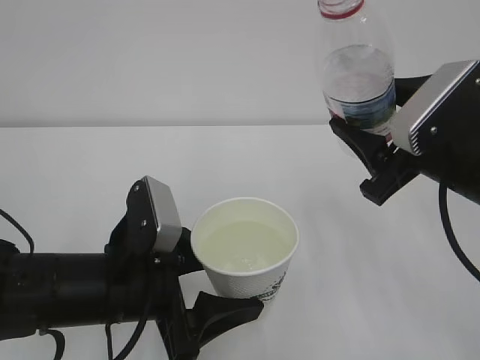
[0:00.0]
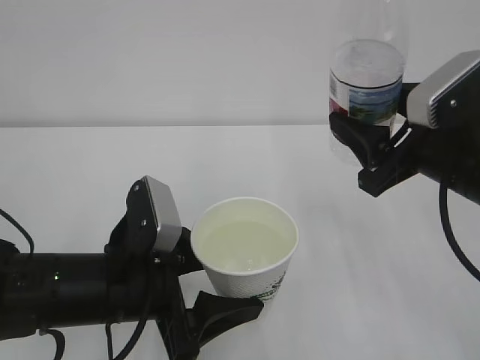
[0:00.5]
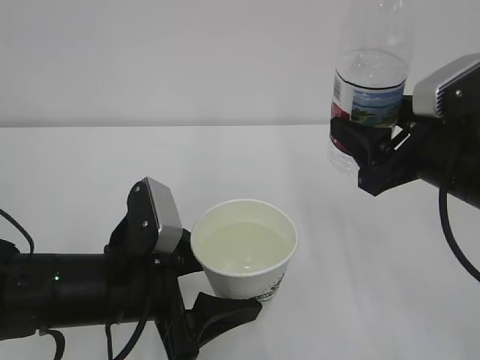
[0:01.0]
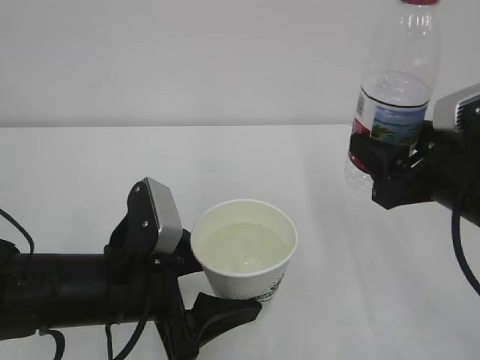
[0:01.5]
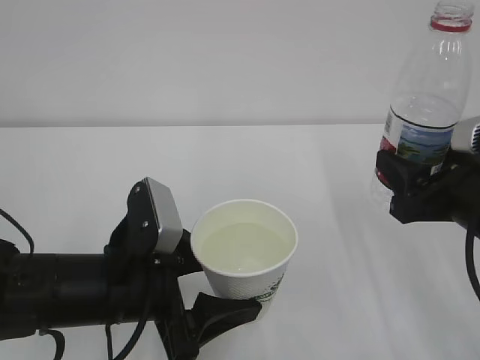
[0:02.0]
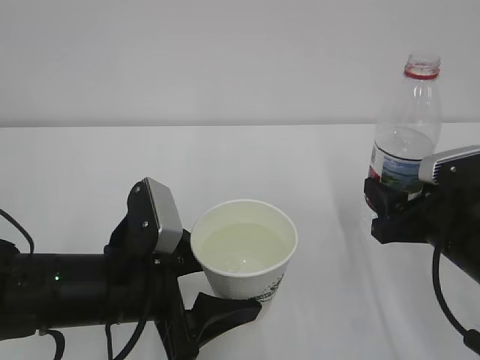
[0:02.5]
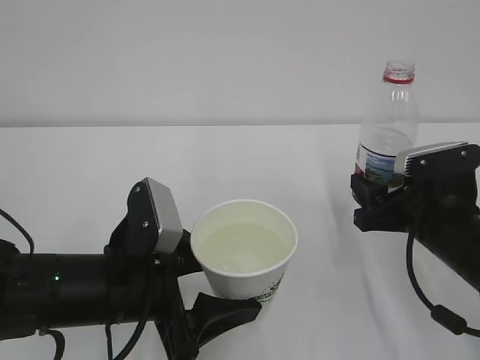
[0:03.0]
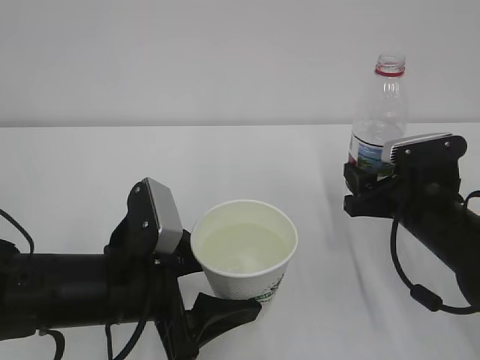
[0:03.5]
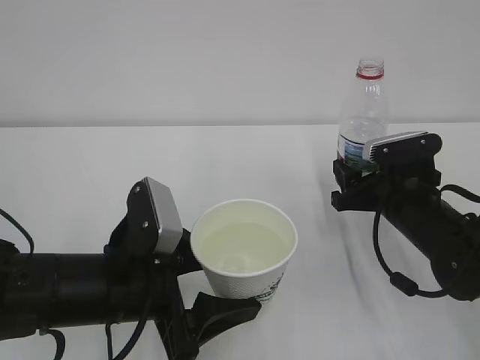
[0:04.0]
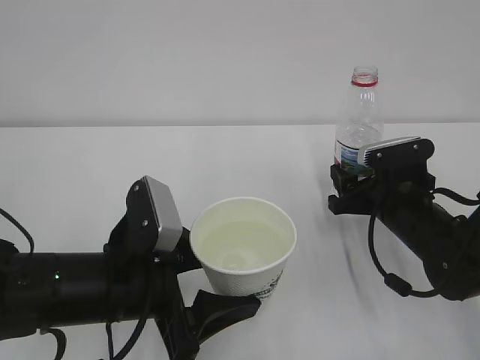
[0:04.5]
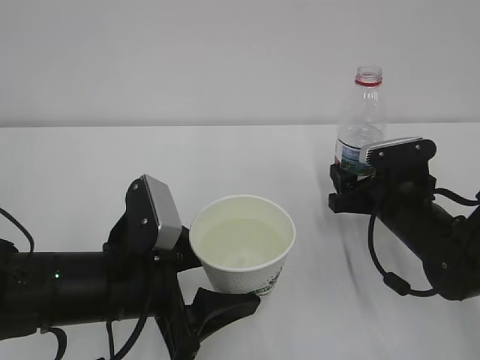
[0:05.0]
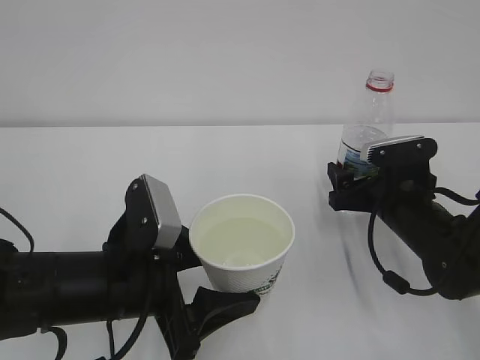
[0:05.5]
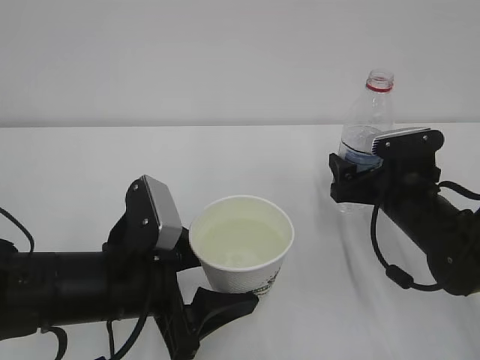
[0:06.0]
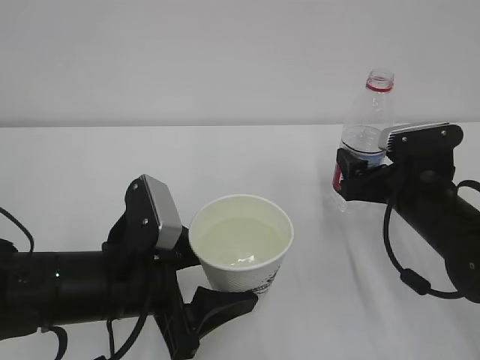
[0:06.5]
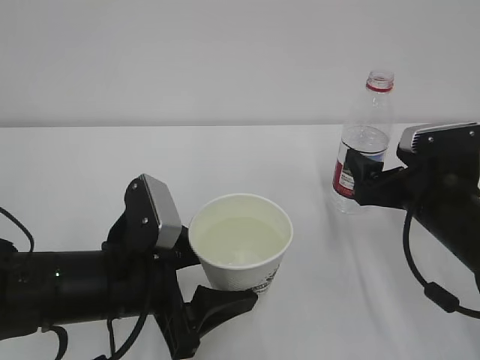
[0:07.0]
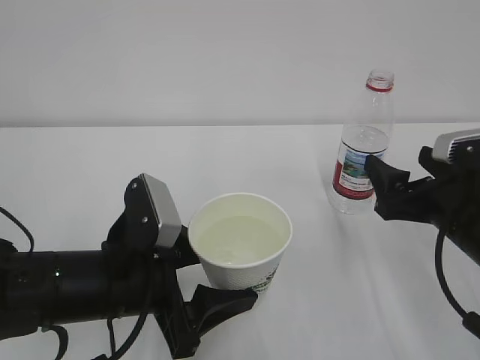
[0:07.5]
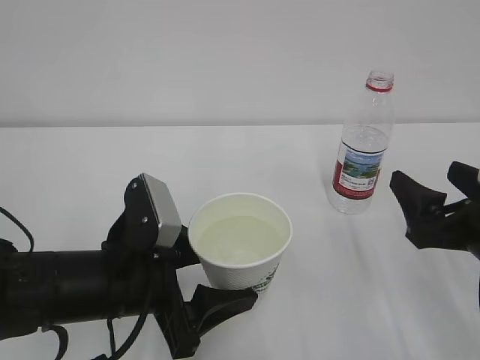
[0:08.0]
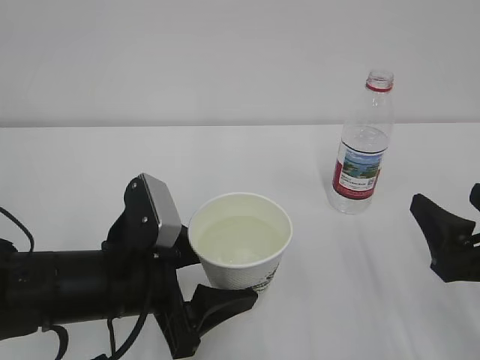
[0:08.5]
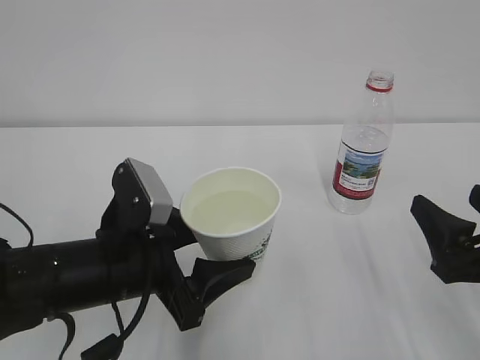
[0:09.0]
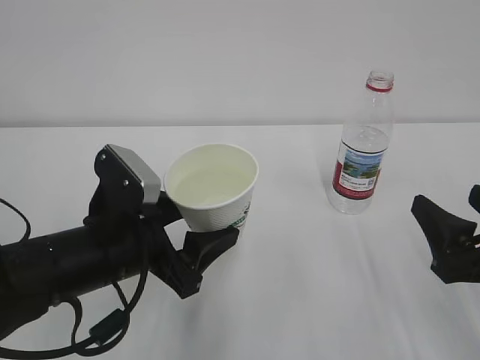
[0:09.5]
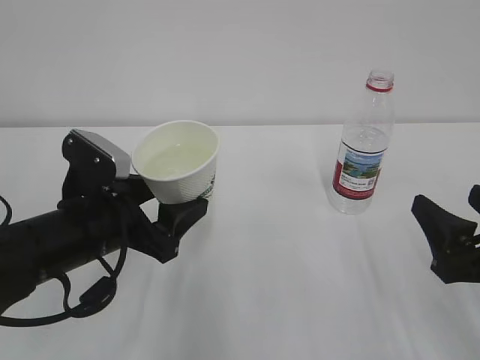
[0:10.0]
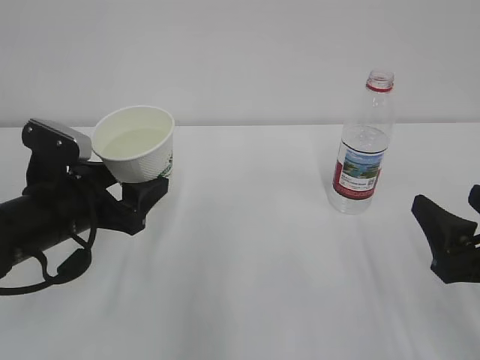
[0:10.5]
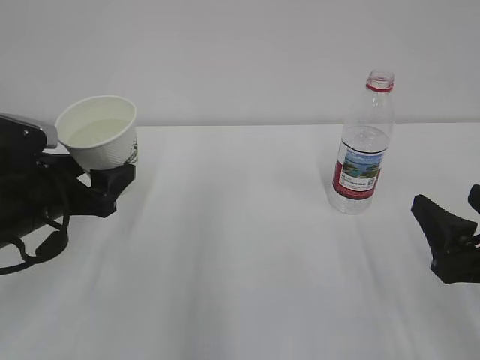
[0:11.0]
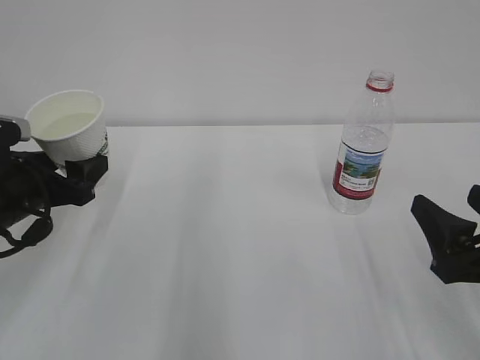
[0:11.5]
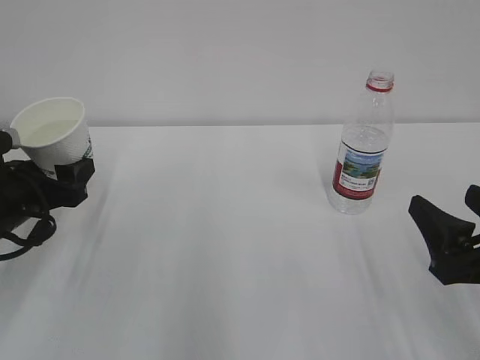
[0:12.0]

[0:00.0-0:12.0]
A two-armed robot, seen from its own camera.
0:00.0 to 0:02.0: The right gripper moves roughly 5 cm.
0:02.0 to 0:04.0: The right gripper shifts approximately 15 cm forward and downward.
0:04.0 to 0:06.0: The right gripper opens up.
0:06.0 to 0:08.0: The right gripper is displaced backward and upward by roughly 15 cm.
0:08.0 to 0:10.0: The left gripper shifts by about 5 cm.
0:10.0 to 0:12.0: The left gripper moves to the left and forward, roughly 10 cm.

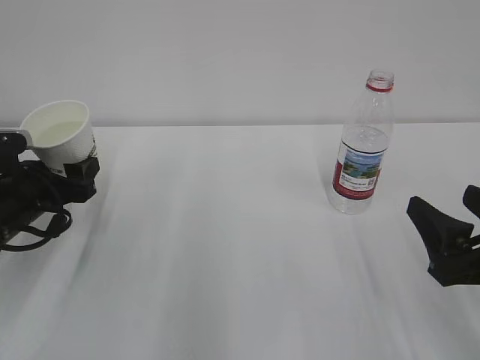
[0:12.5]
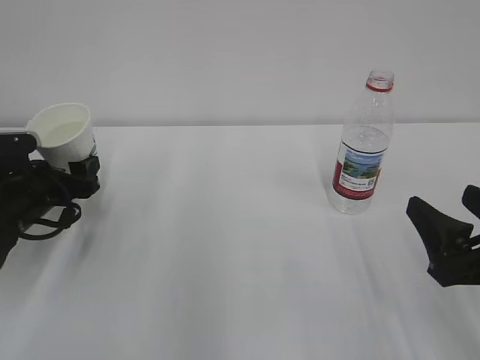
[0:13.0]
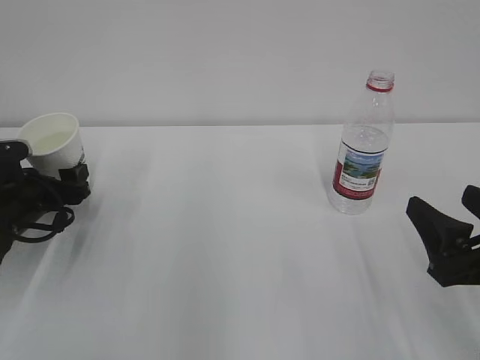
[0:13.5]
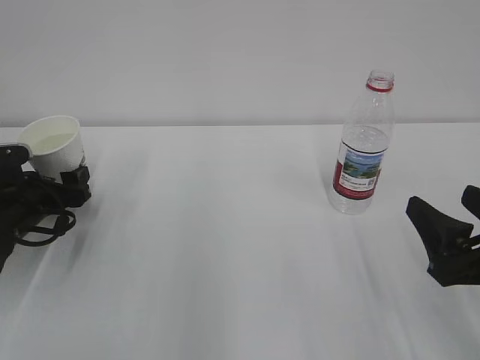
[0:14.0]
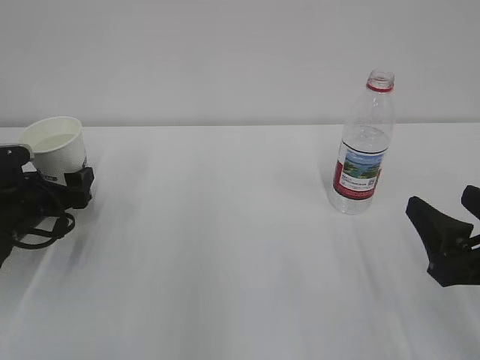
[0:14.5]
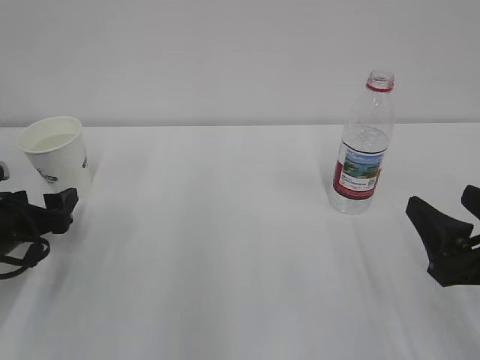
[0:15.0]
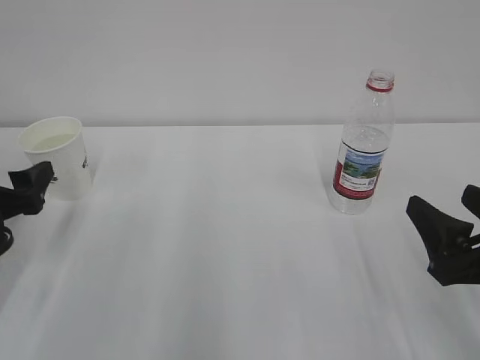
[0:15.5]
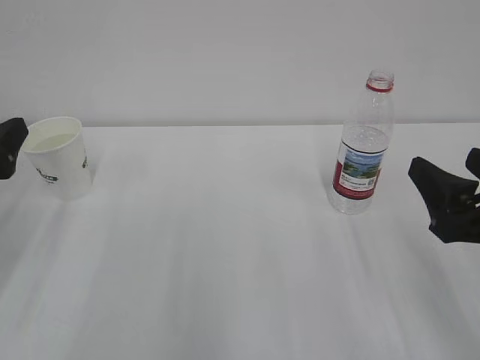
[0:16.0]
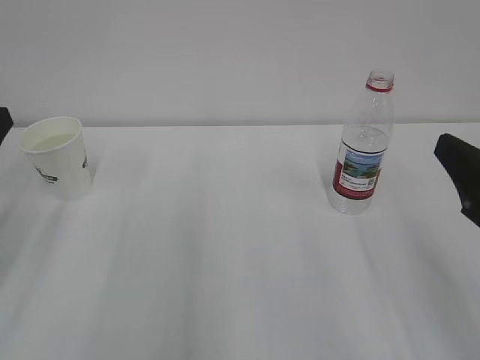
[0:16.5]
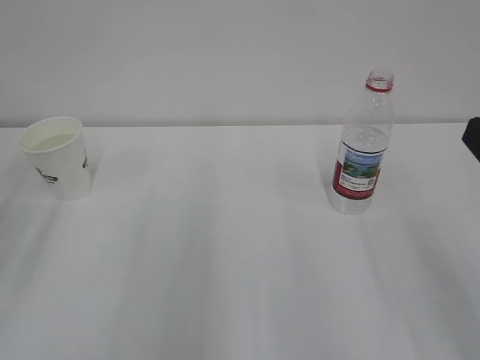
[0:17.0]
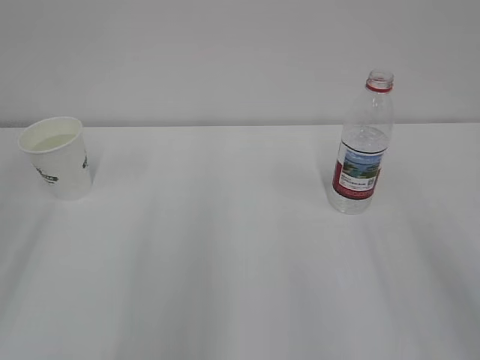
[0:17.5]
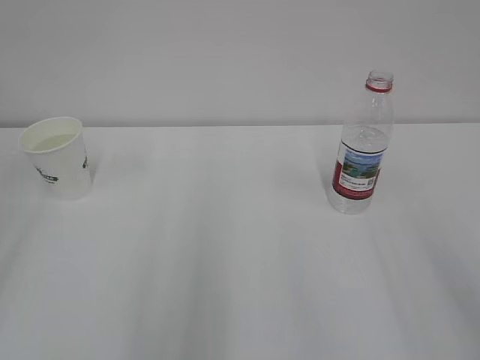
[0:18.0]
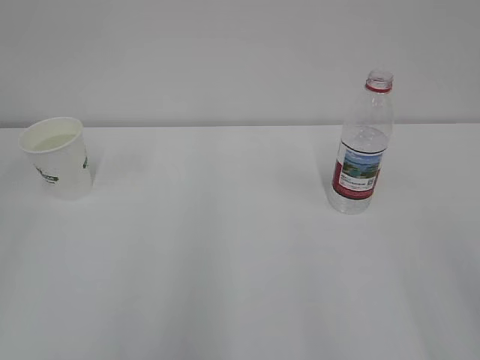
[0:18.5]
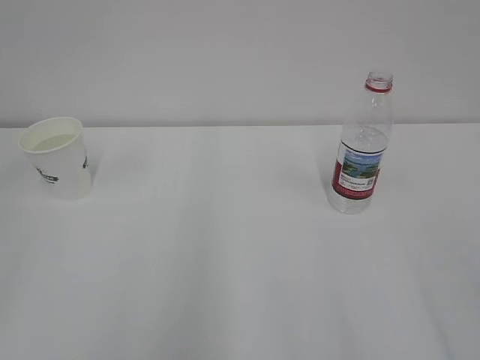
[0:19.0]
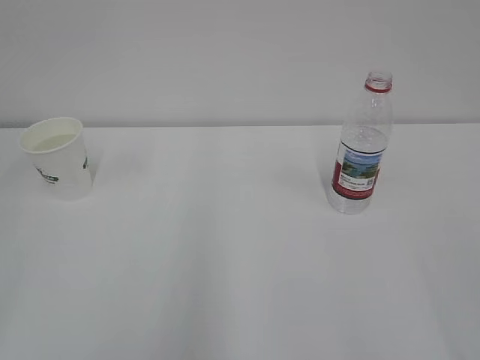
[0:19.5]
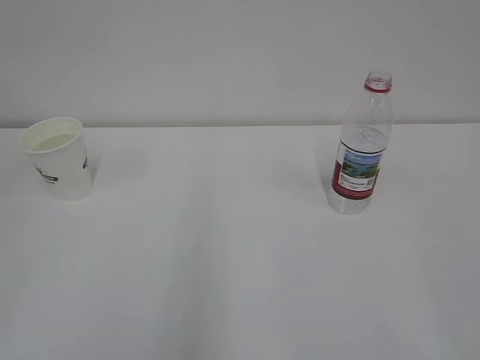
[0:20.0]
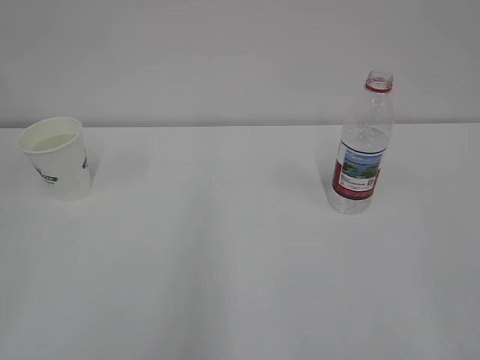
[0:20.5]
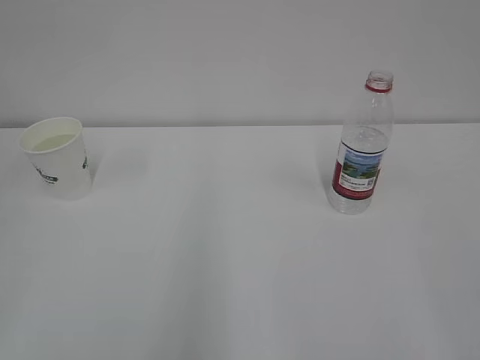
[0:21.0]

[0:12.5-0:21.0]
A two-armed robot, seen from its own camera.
0:12.5 to 0:14.5: The left gripper opens up.
0:14.5 to 0:16.5: The right gripper shifts roughly 5 cm upward. The left gripper is displaced upward and backward by some 20 cm.
0:16.5 to 0:19.0: The right gripper goes roughly 15 cm backward.

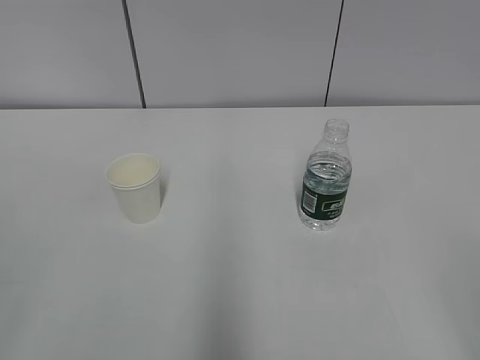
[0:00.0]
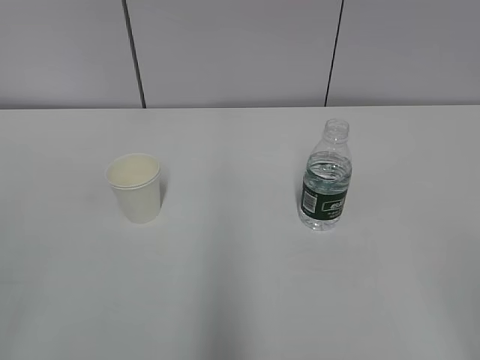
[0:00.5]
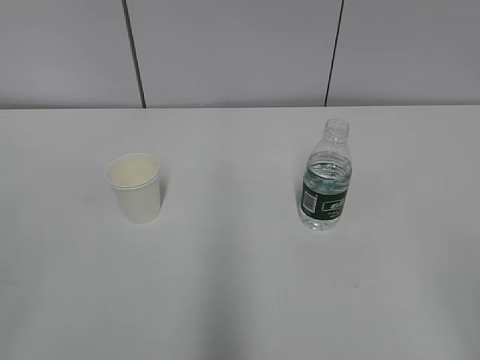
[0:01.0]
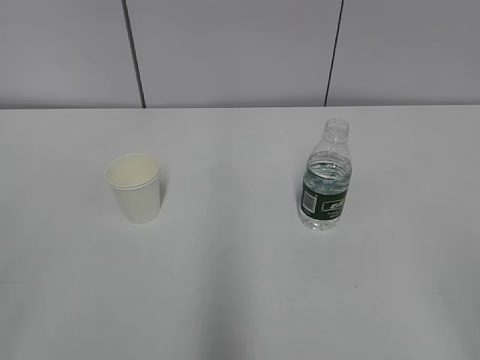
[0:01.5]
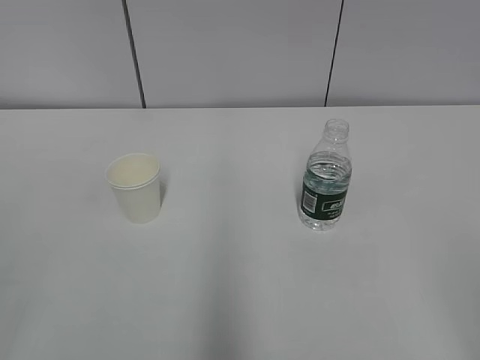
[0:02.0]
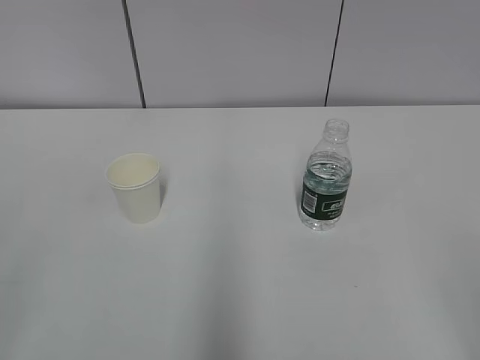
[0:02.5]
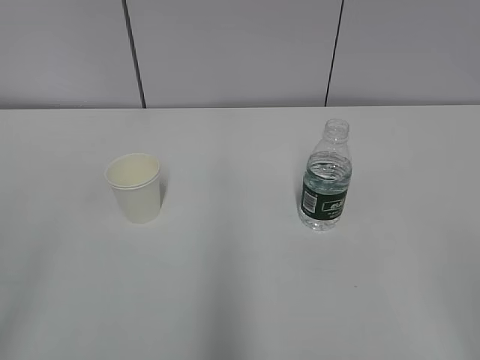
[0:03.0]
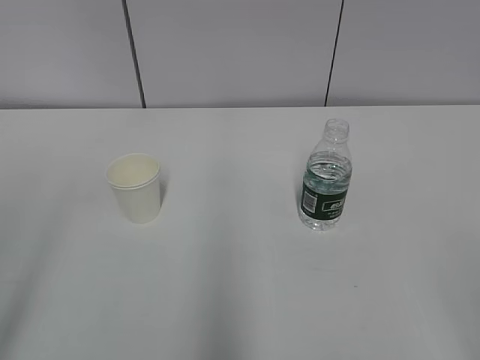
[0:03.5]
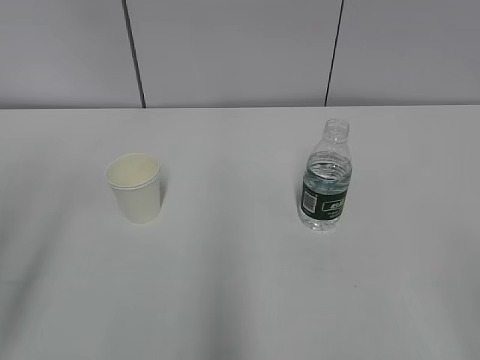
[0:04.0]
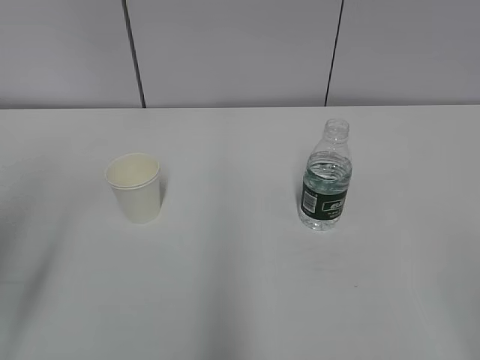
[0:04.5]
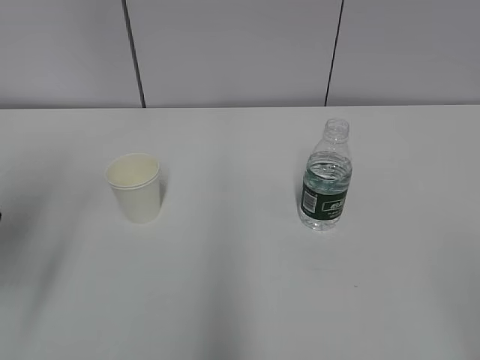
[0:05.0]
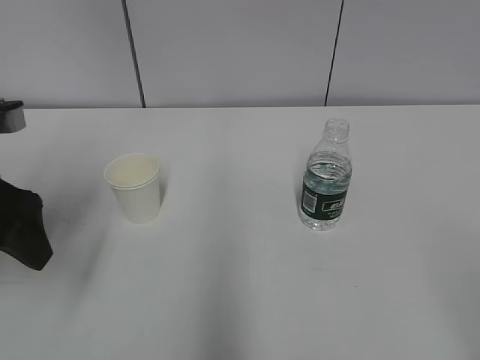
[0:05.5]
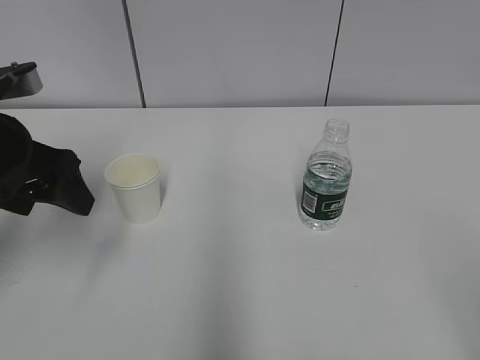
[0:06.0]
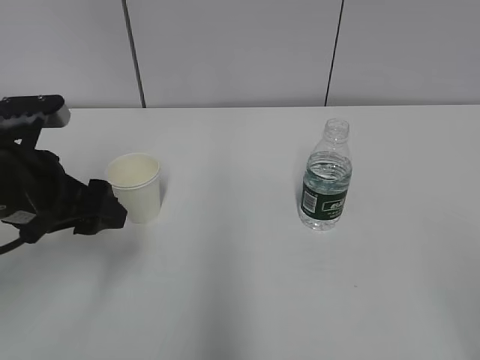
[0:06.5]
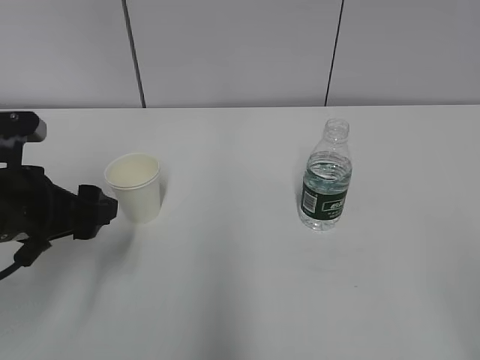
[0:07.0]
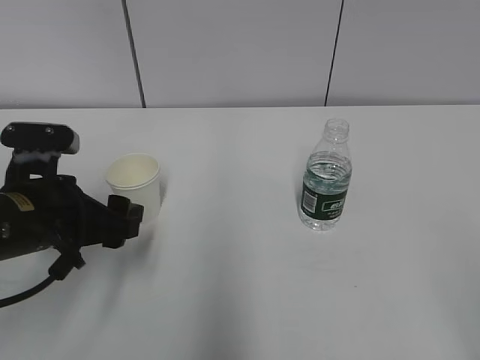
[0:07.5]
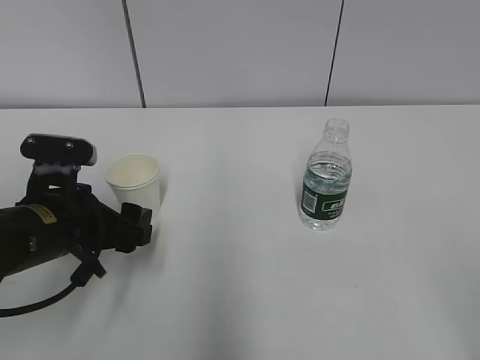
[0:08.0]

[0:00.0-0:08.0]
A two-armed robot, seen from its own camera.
0:04.0 to 0:06.0: The left gripper goes approximately 15 cm forward.
0:06.0 to 0:08.0: The left gripper heads downward and to the right, covering approximately 10 cm.
